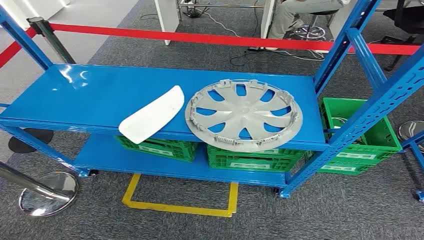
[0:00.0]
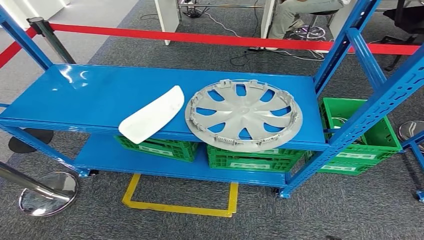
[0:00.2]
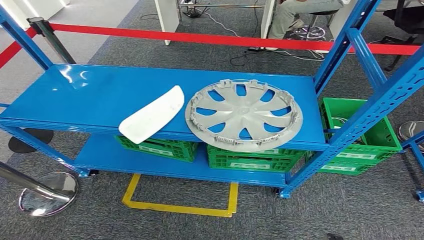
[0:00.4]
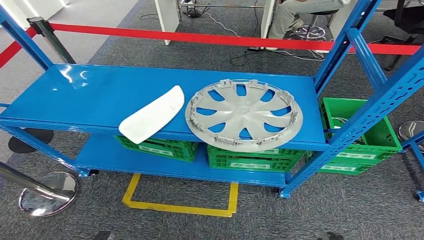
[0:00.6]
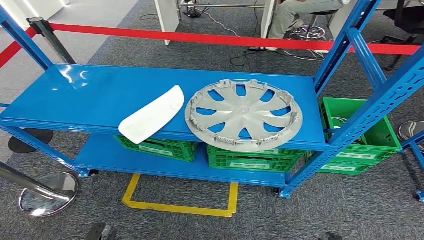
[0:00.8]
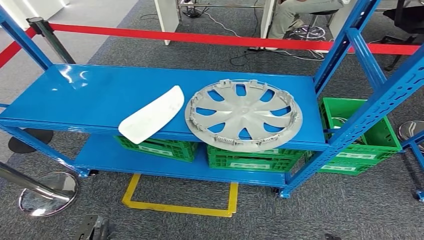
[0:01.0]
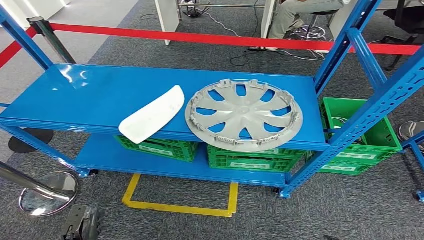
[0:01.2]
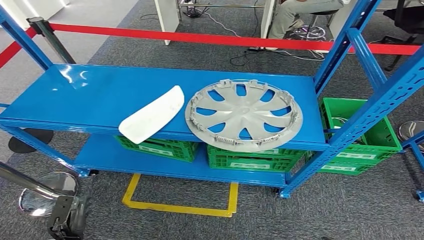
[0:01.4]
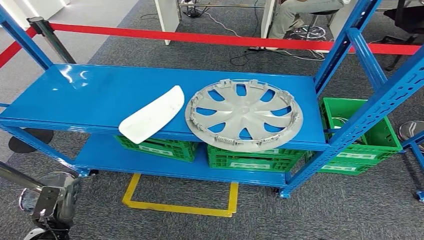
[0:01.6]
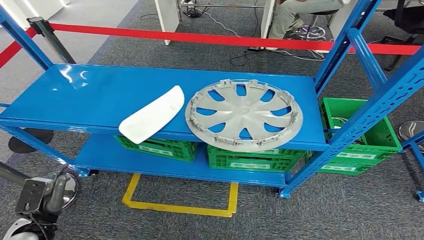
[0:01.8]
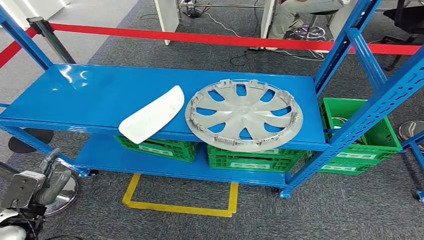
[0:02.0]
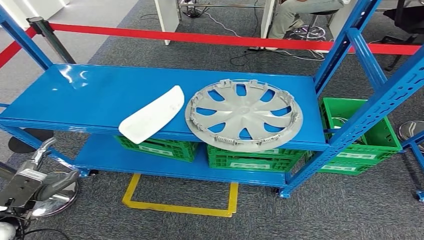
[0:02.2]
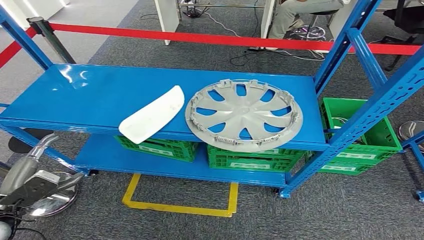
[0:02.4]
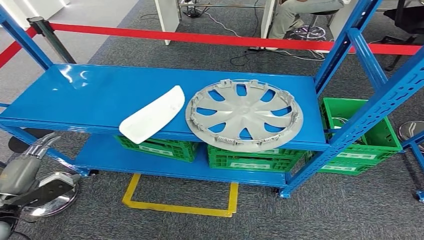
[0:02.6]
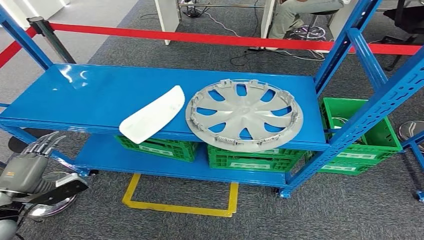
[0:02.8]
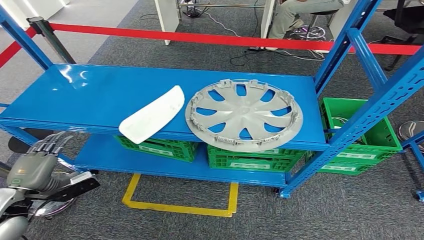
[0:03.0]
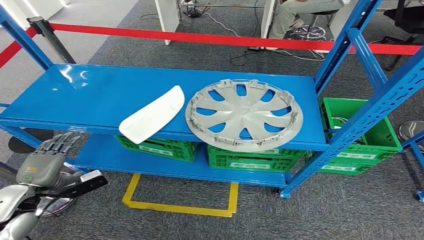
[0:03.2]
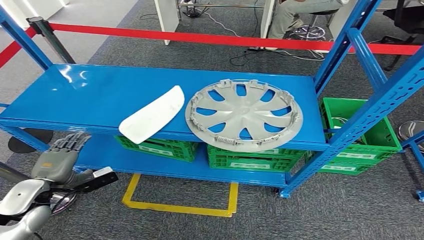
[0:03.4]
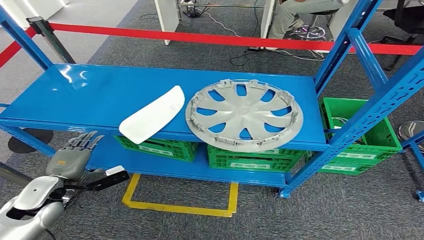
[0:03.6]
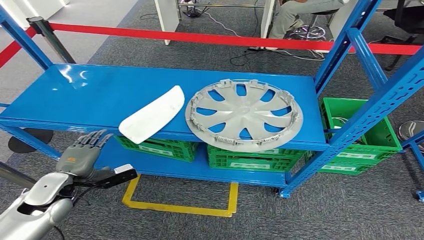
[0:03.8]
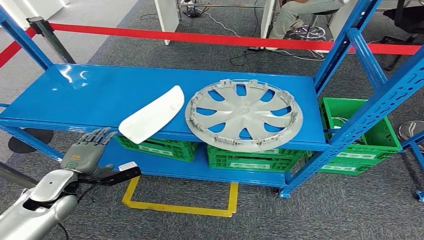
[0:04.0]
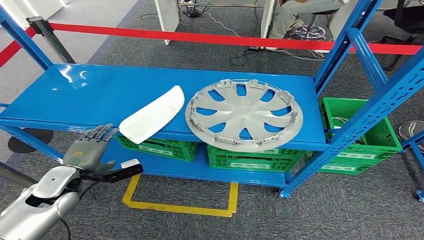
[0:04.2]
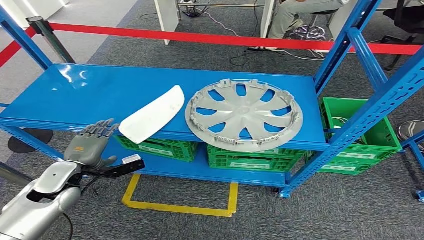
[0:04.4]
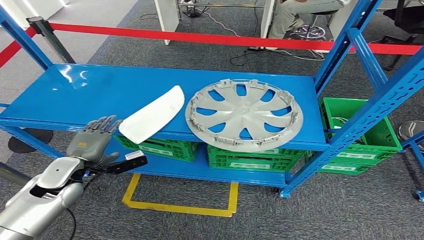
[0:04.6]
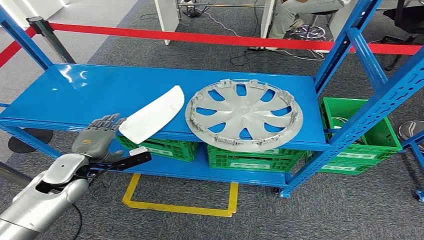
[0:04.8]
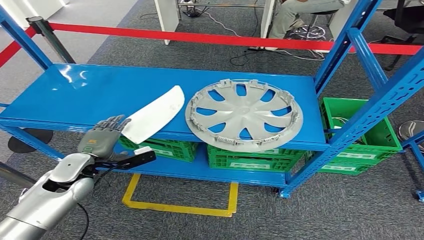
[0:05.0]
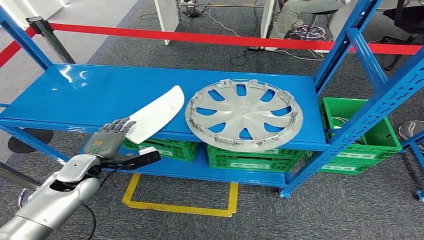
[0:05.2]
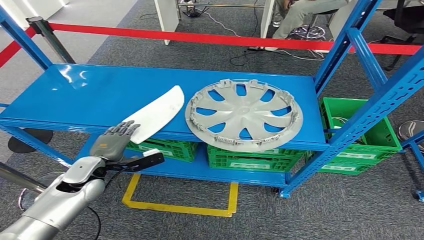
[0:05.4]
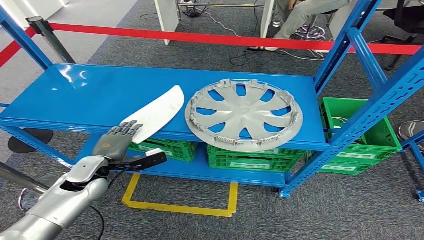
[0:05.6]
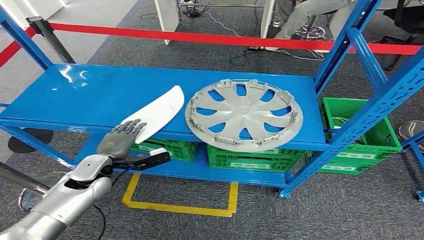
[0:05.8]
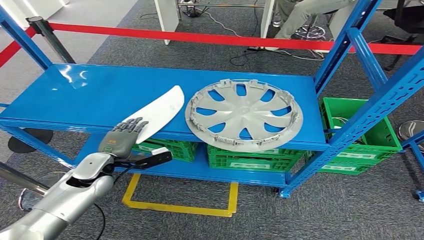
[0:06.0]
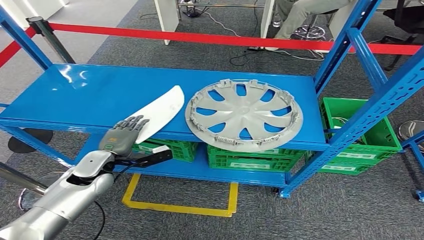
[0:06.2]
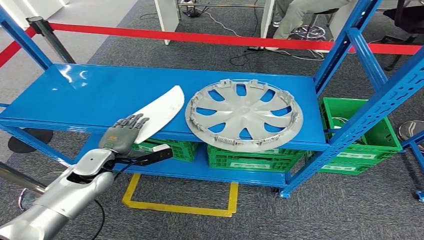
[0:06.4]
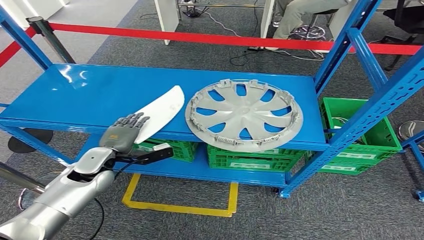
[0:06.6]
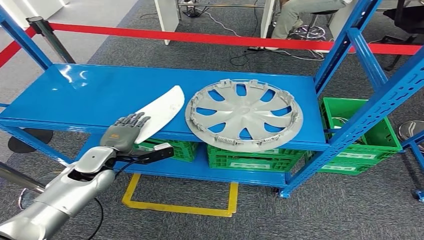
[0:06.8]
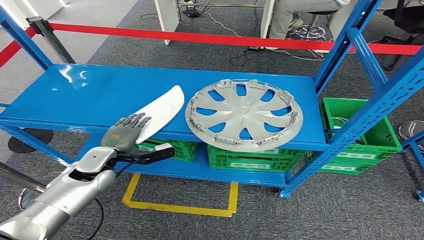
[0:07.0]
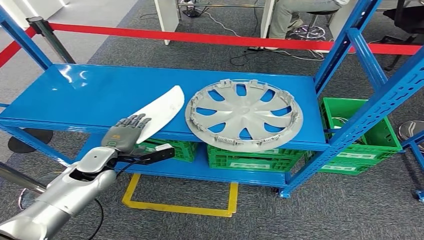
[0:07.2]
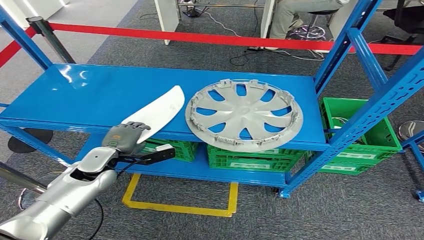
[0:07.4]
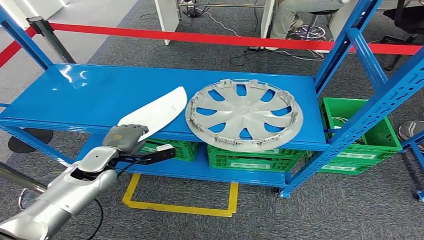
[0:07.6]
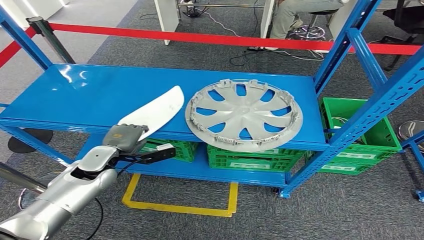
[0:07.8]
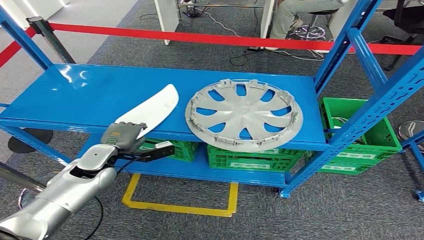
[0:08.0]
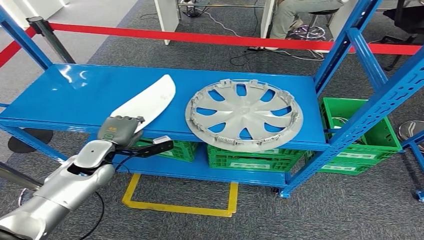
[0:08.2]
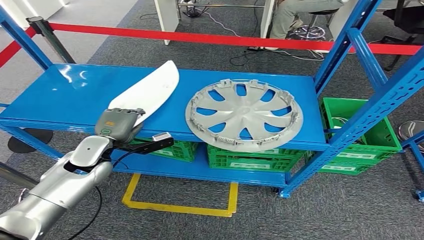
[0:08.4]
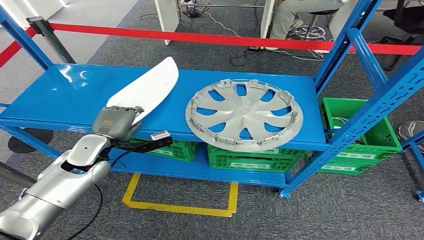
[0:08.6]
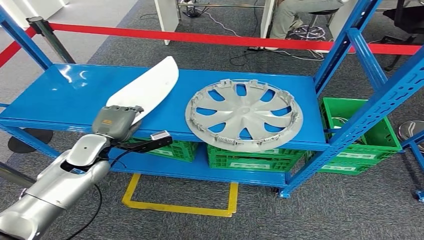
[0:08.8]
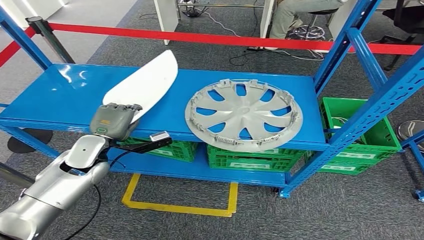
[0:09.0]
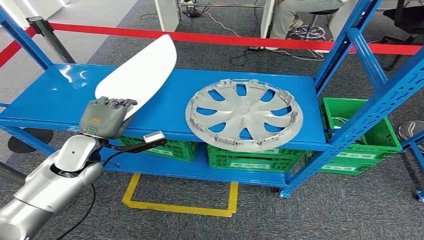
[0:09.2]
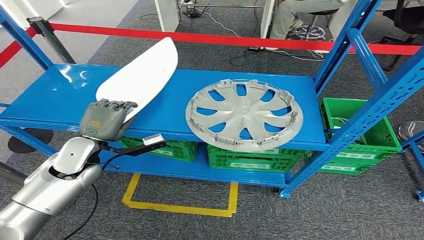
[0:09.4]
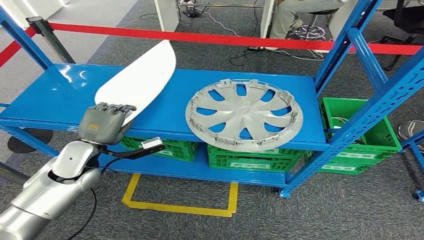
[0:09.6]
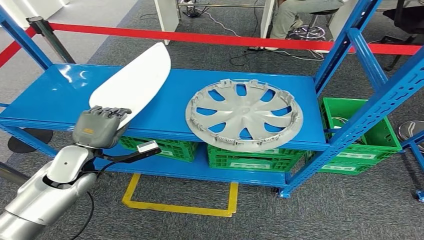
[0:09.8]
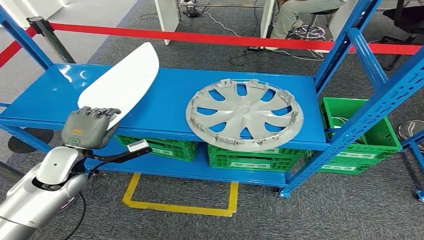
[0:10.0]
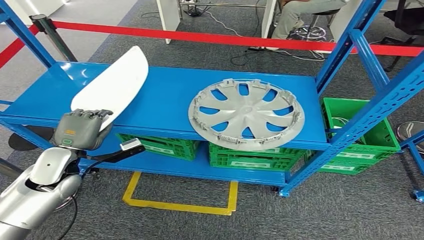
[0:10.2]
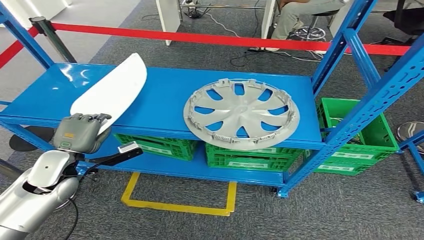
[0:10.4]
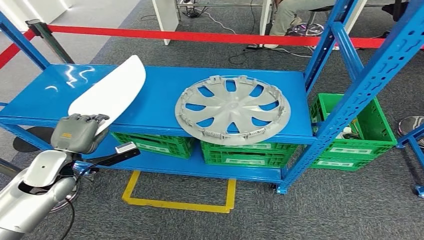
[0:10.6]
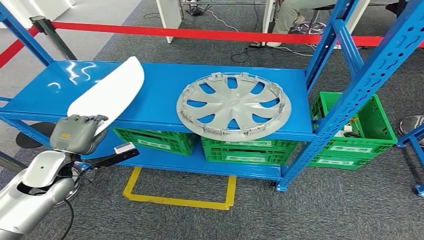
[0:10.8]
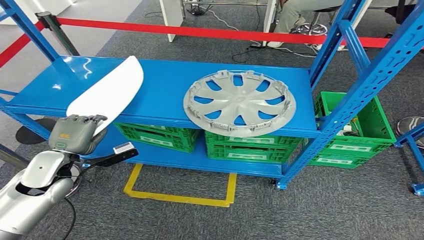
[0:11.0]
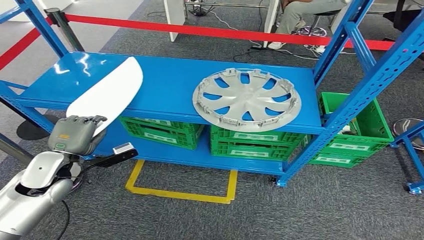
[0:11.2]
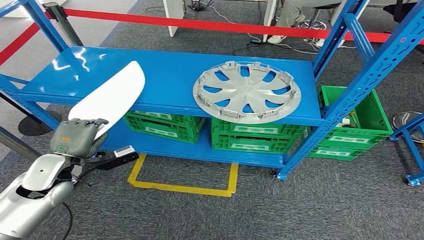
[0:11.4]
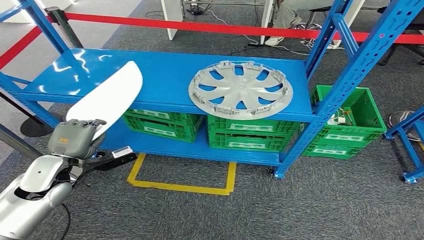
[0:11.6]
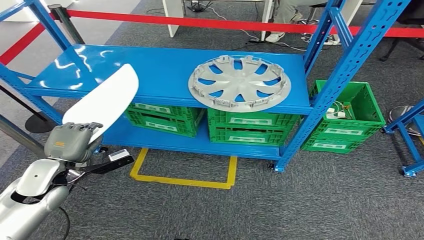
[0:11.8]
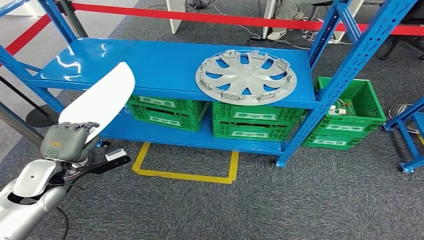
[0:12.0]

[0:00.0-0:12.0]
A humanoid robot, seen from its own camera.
0:01.6 to 0:03.0: The left hand shifts some 15 cm upward and forward.
0:03.0 to 0:04.4: The left hand is displaced forward and to the right by approximately 10 cm.
0:04.4 to 0:06.0: The left hand goes about 5 cm to the right.
0:06.0 to 0:07.6: The hands stay close to where they were, moving slightly.
0:07.6 to 0:09.0: The left hand moves upward, roughly 5 cm.

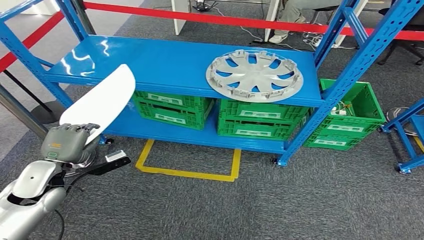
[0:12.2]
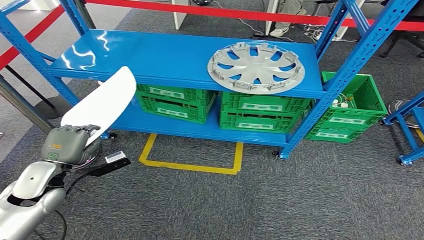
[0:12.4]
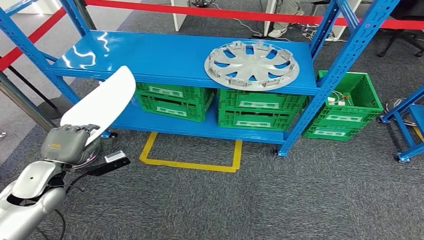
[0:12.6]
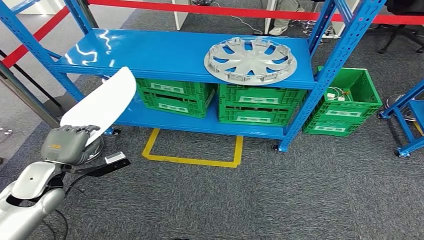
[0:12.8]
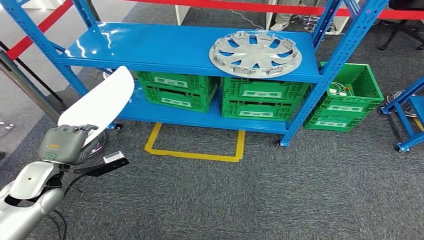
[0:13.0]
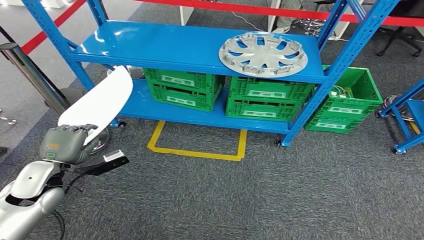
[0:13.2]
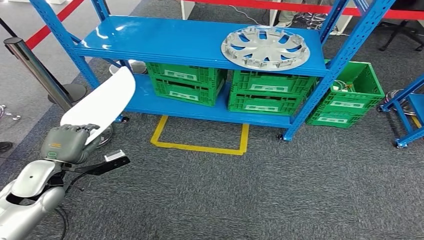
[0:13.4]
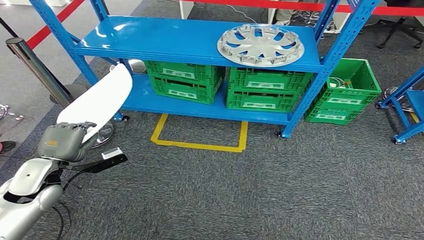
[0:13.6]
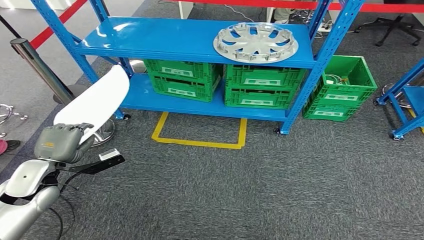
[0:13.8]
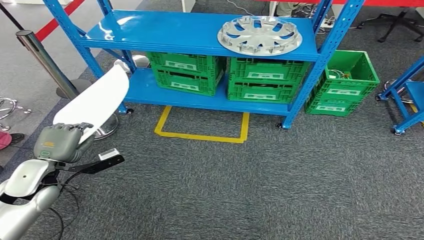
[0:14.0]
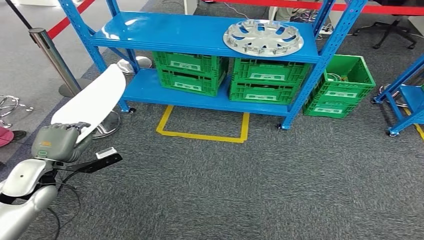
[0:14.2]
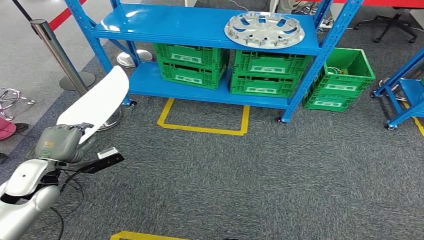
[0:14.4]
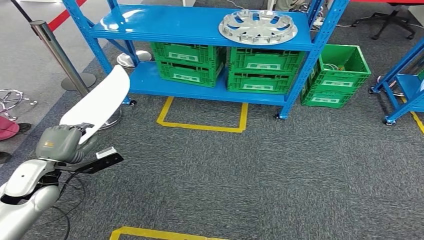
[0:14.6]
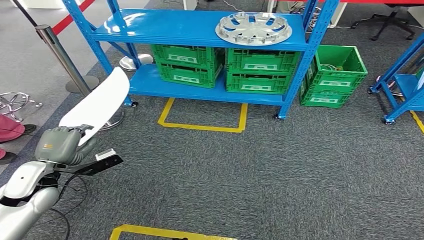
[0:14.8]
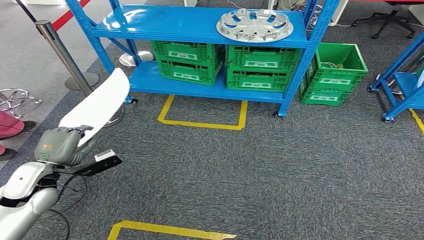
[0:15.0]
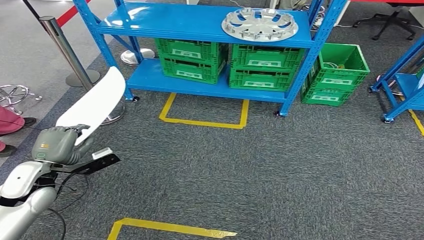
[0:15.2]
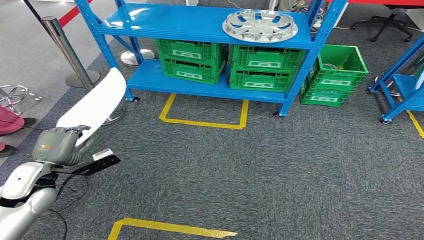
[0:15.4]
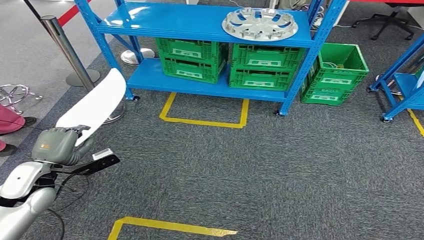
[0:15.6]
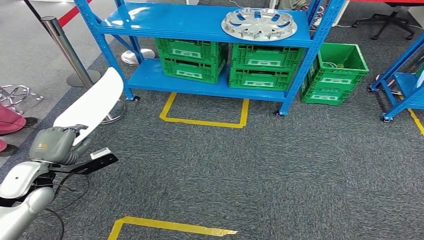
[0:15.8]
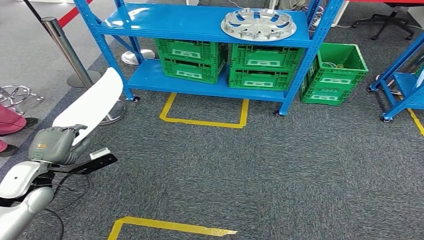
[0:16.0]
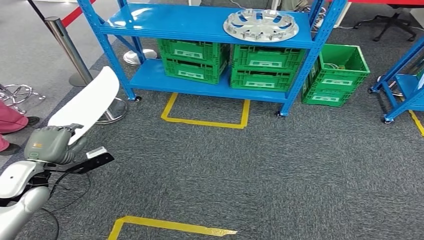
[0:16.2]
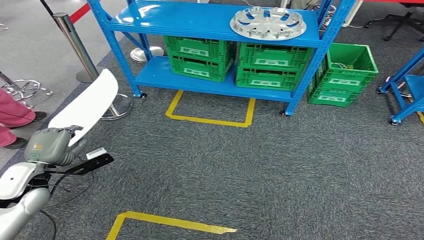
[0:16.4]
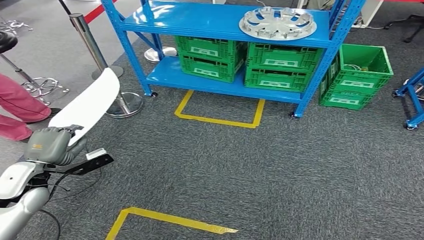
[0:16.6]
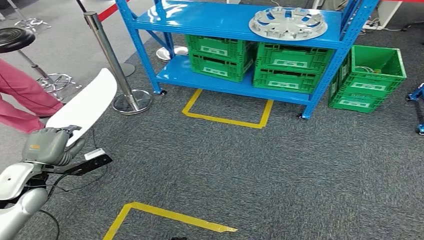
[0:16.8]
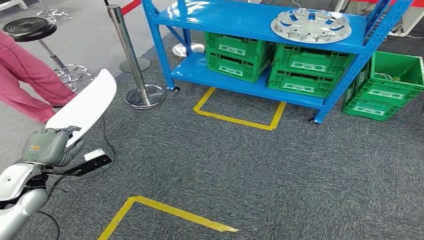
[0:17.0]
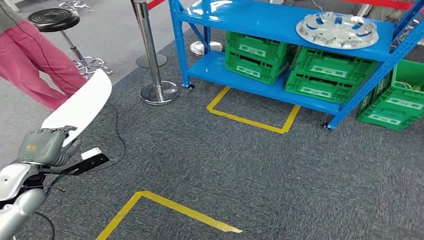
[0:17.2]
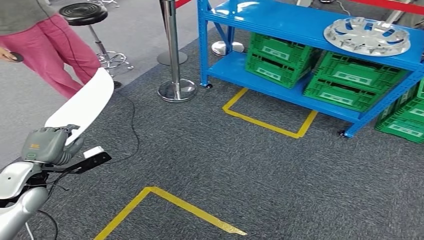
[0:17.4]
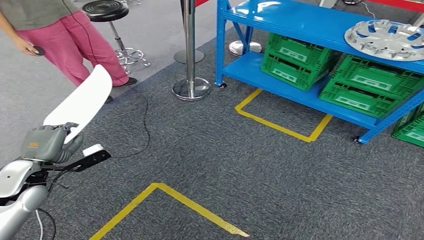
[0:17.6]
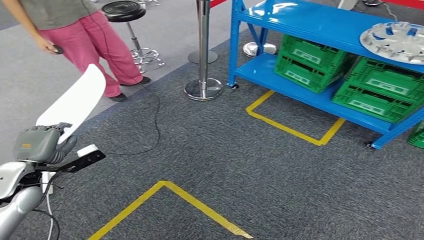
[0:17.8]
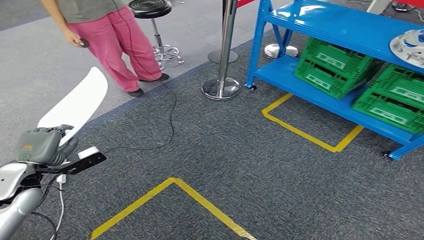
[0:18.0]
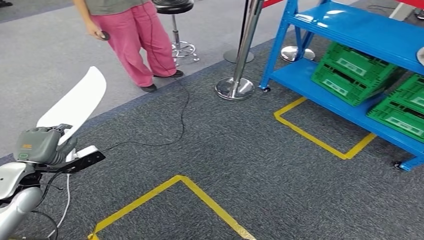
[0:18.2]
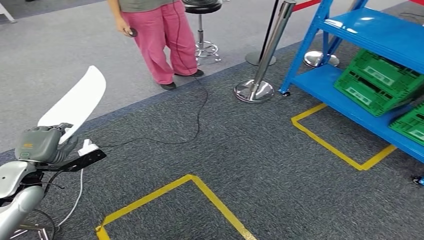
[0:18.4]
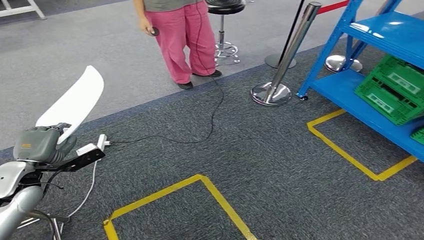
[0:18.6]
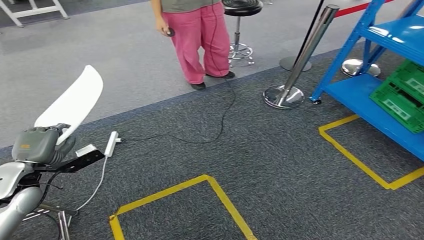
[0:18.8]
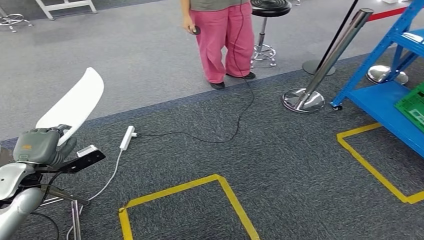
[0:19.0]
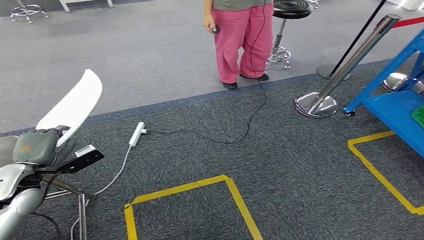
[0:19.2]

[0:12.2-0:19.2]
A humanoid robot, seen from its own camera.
Step, 0:12.2 to 0:15.8: Pick up the small component from the shelf.
